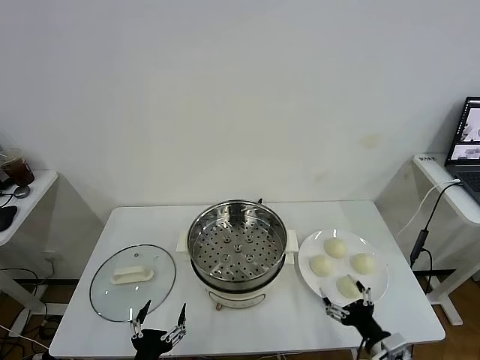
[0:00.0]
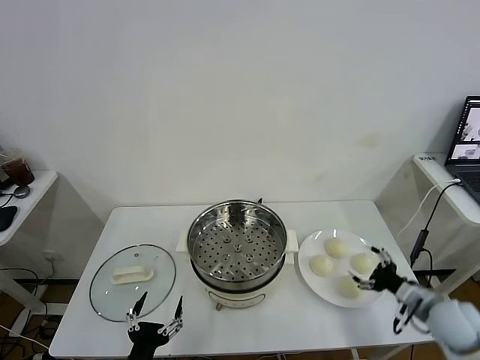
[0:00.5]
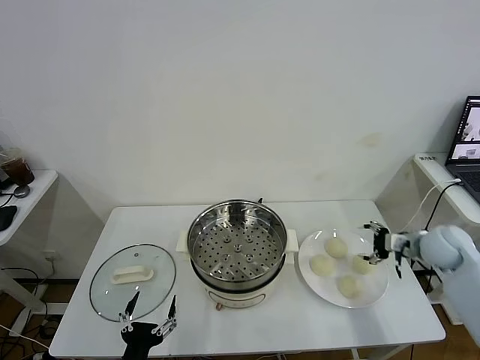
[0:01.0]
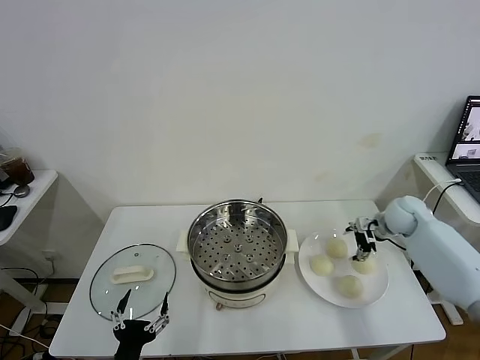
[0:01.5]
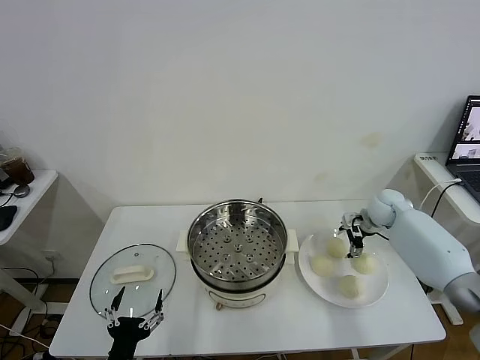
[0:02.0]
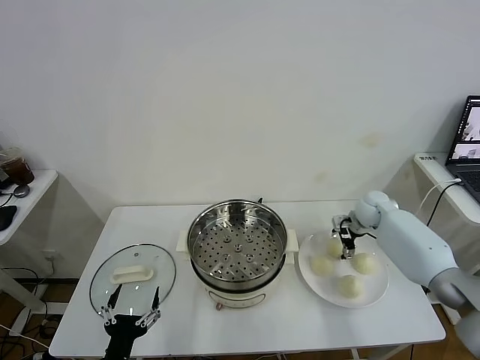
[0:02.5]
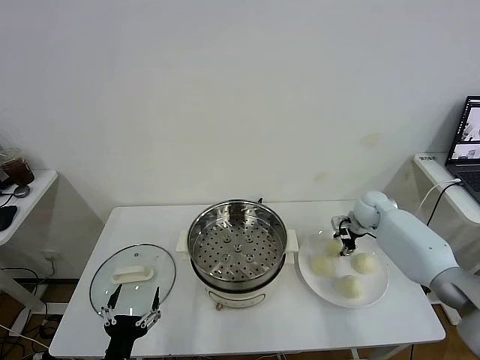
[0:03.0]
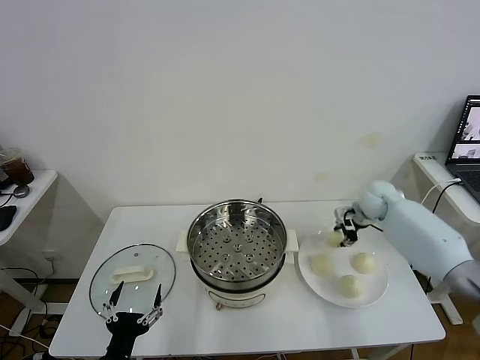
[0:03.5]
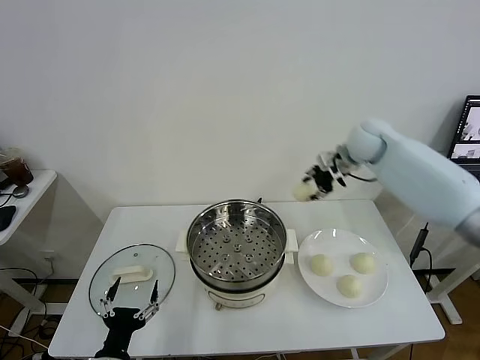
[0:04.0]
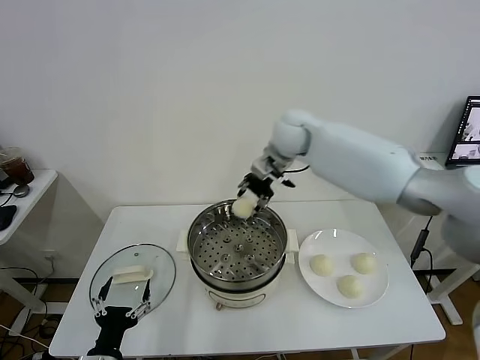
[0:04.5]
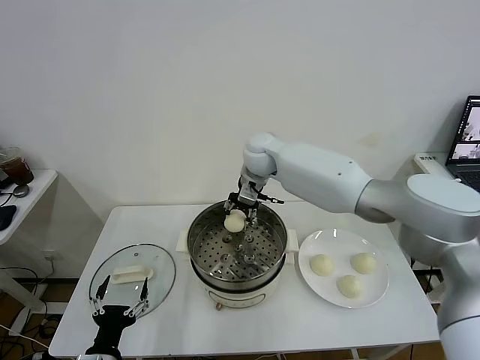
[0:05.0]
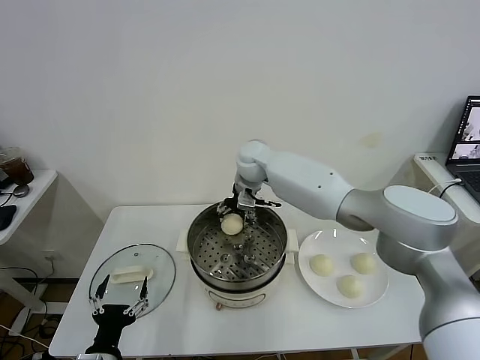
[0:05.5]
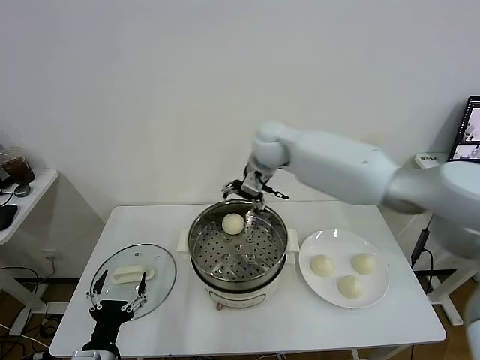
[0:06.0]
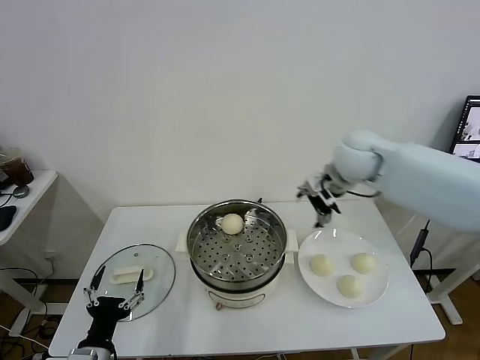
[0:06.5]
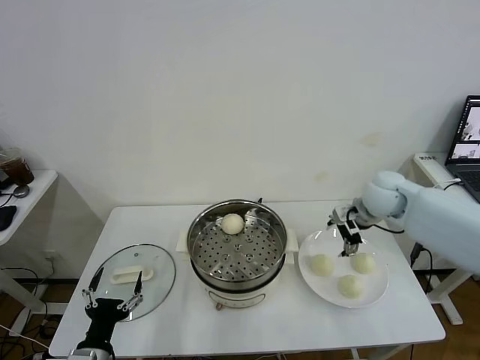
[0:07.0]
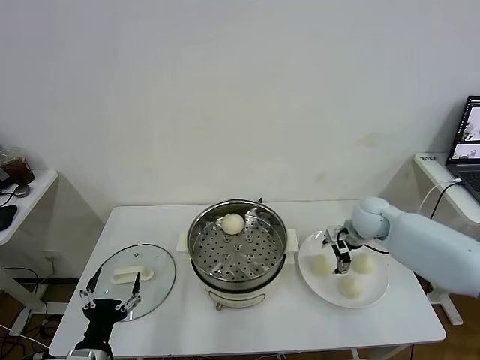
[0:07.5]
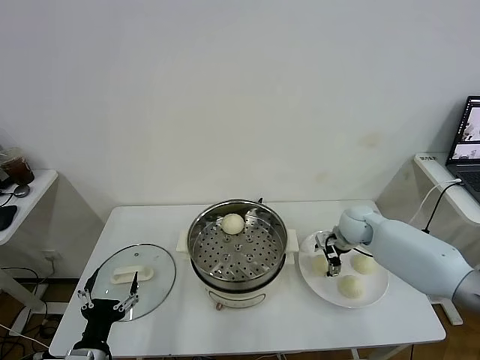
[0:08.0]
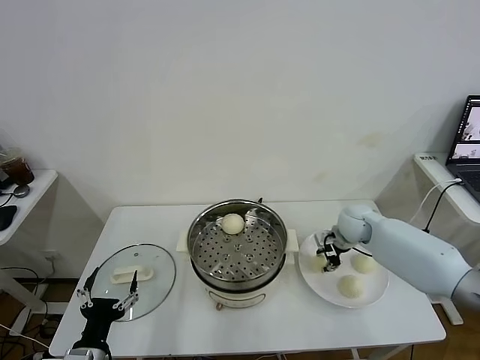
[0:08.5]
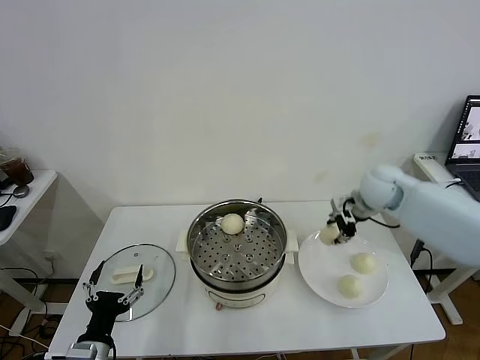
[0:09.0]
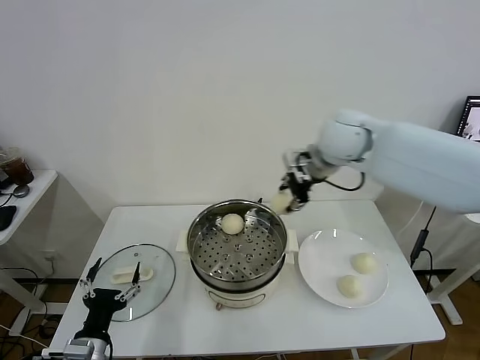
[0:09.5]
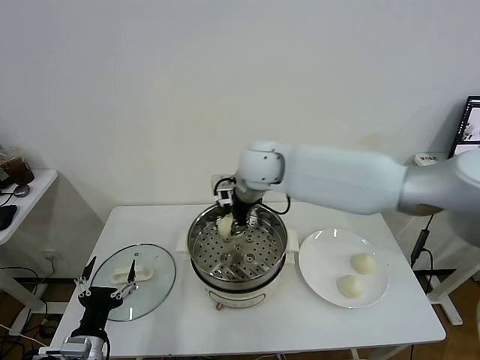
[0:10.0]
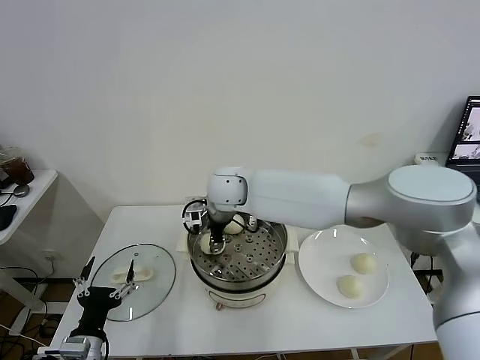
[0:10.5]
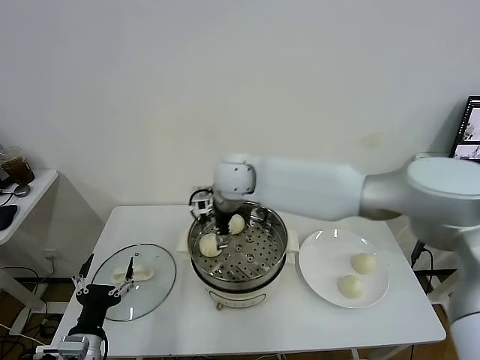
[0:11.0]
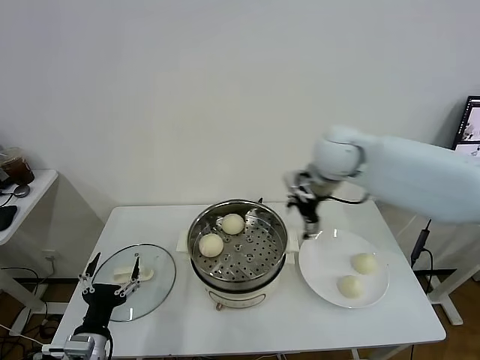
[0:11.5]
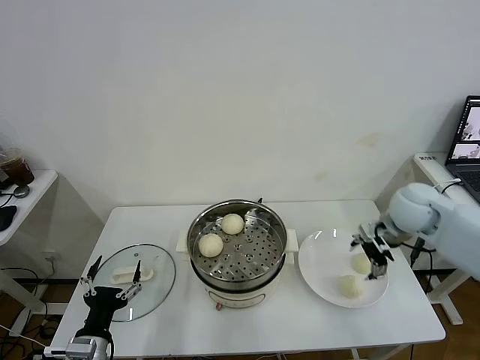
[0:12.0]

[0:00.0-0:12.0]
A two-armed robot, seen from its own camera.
Task of the whole recording: take steamed baozi put them in steamer.
Step, 0:00.0 to 0:03.0: Grasp the baozi in the plate with right gripper.
Step, 0:03.5 to 0:05.5: Place the baozi on the steamer with right gripper.
Step, 0:06.0 to 0:08.0: Grasp the baozi in the plate with right gripper.
Step, 0:09.0 to 0:10.5: Place the baozi on the steamer with right gripper.
0:02.0 to 0:04.0: The right gripper moves upward and to the left, approximately 25 cm, and closes up.
0:04.0 to 0:06.0: The right gripper shifts roughly 20 cm to the left, and opens.
0:06.0 to 0:08.0: The right gripper shifts roughly 30 cm to the right and downward.
0:08.0 to 0:10.0: The right gripper shifts some 35 cm to the left and upward, and closes its fingers.
0:10.0 to 0:12.0: The right gripper shifts approximately 30 cm to the right, and opens up.

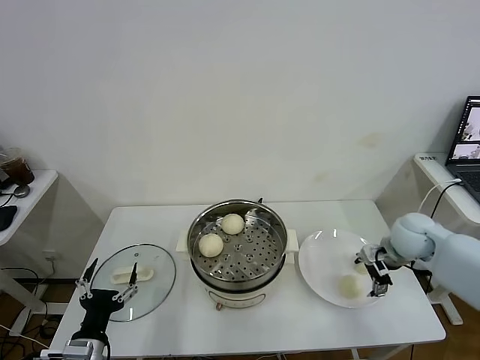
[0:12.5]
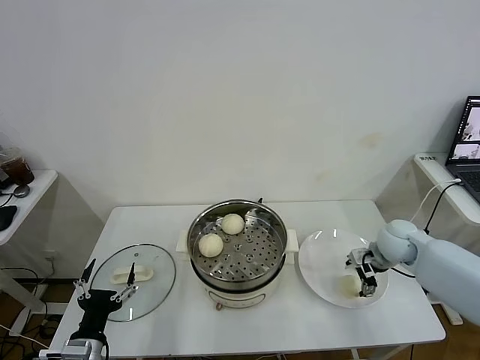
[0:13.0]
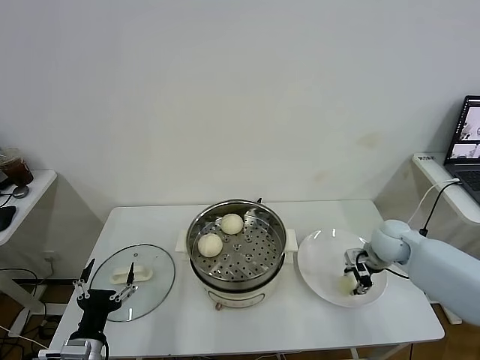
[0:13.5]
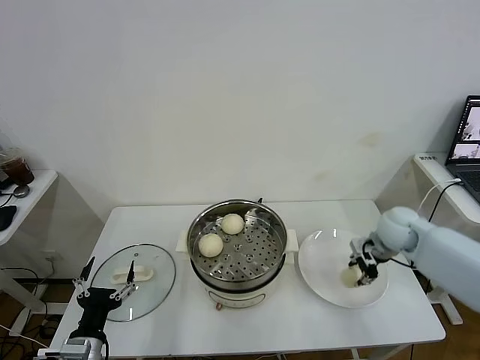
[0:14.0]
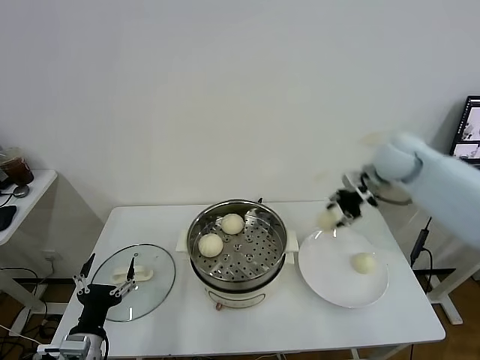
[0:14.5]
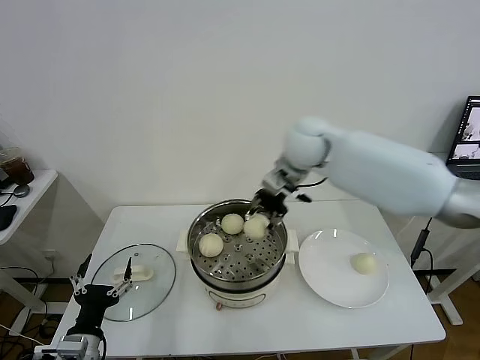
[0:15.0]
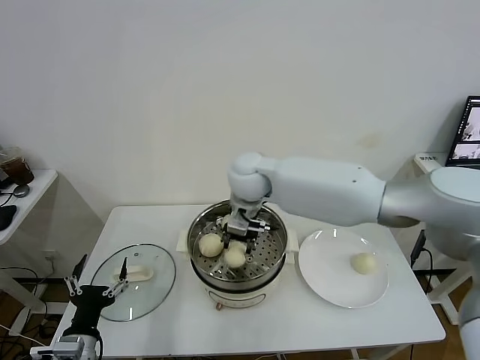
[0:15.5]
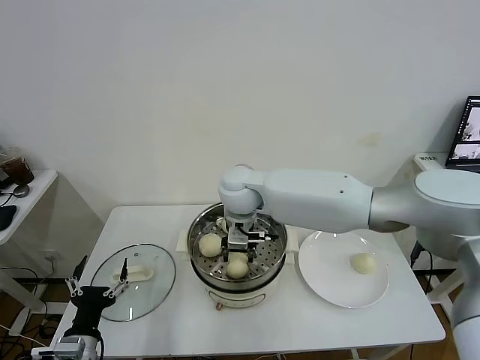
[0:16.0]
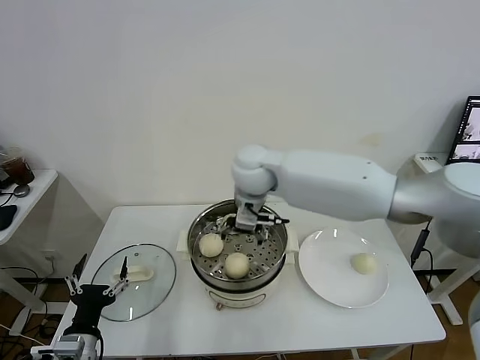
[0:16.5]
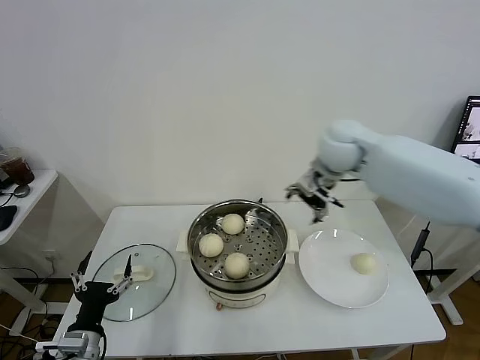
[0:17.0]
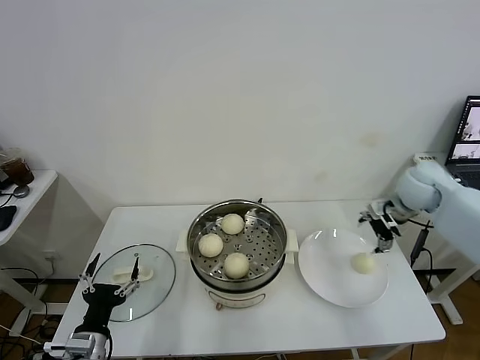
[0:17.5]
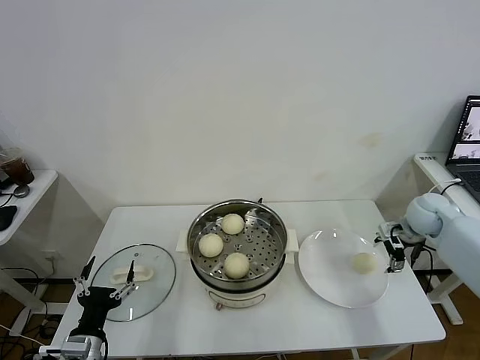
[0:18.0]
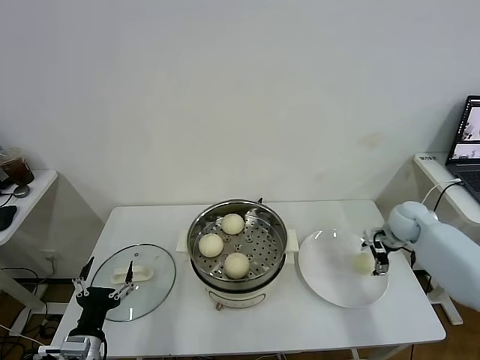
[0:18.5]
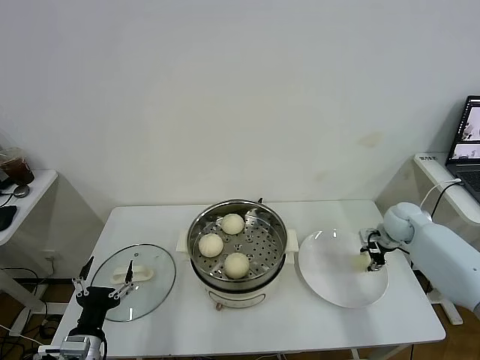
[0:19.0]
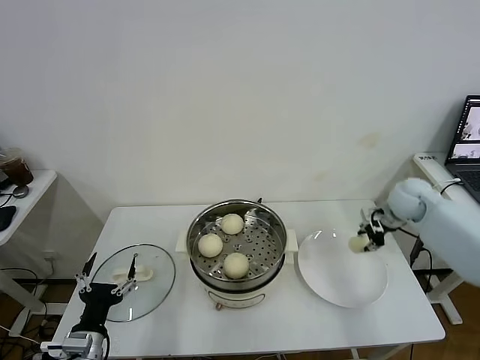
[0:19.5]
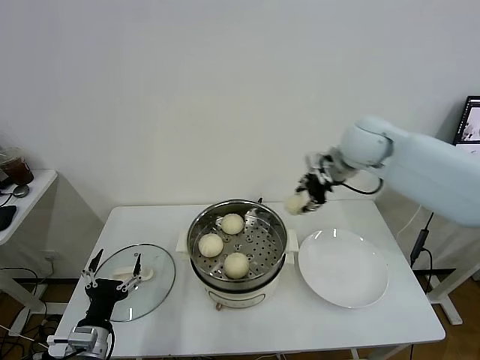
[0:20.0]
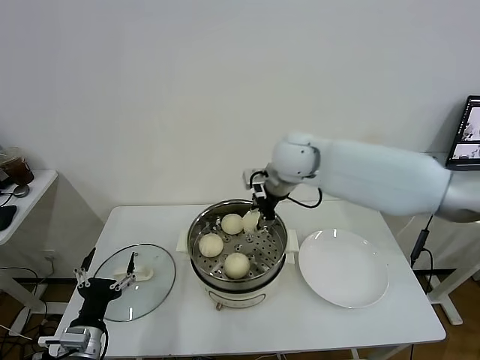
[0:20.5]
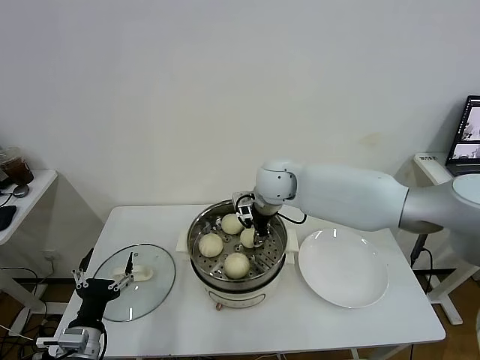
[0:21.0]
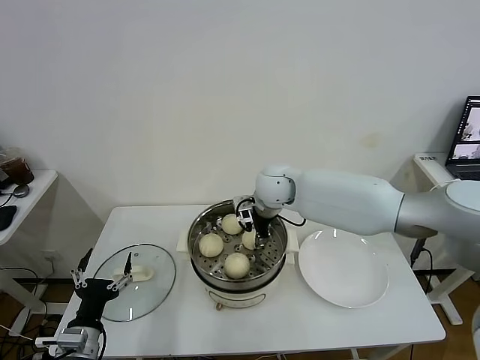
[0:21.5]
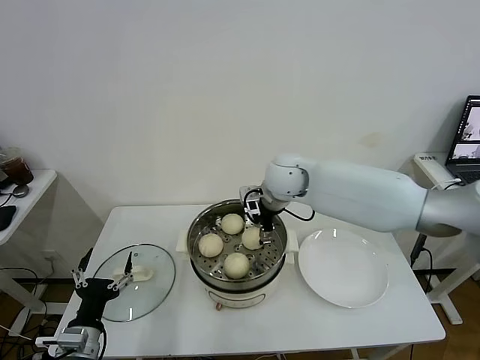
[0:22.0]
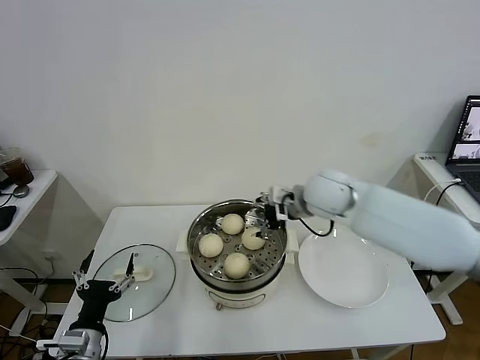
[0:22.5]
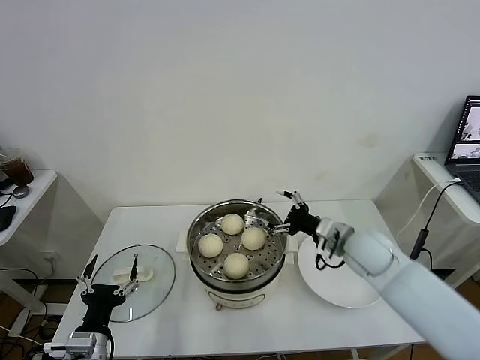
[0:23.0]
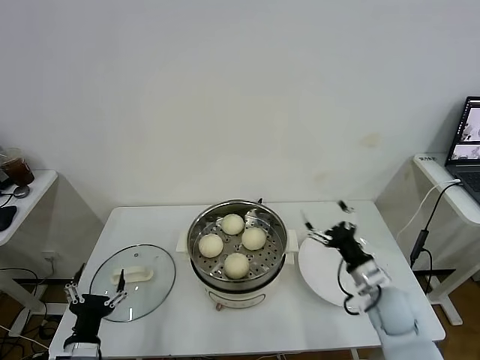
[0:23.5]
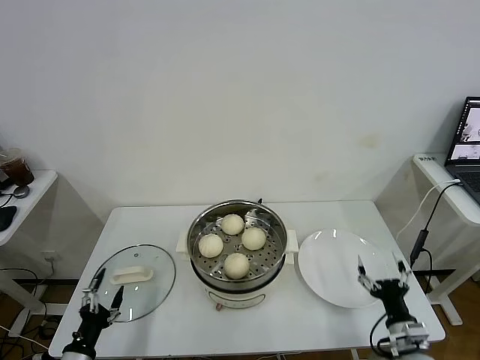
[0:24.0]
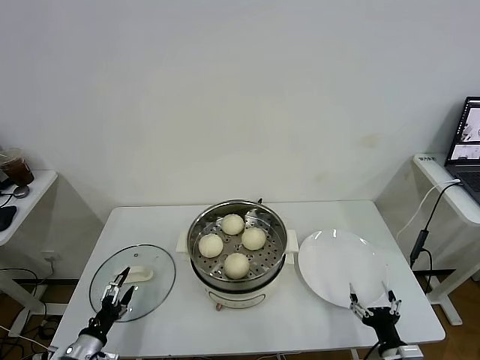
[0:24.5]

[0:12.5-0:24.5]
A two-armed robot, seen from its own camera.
Task of the whole recording: take steamed baozi put them in steamer.
Step, 0:14.0 to 0:16.0: Place the baozi on the steamer with right gripper.
Step, 0:16.5 to 0:19.0: Grasp the baozi in the plate with right gripper.
Step, 0:19.5 to 0:22.0: Place the baozi on the steamer with right gripper.
0:12.5 to 0:14.5: The right gripper shifts roughly 15 cm upward and forward, and closes up.
0:14.5 to 0:16.5: The right gripper moves to the left, roughly 30 cm, and opens up.
0:16.5 to 0:18.5: The right gripper heads to the right and downward, covering roughly 40 cm.
0:18.5 to 0:20.5: The right gripper goes about 40 cm to the left and upward, and closes up.
0:20.5 to 0:22.5: The right gripper goes approximately 10 cm downward and to the right, and opens.
0:22.5 to 0:24.5: The right gripper shifts about 50 cm backward, downward and to the right; the left gripper travels downward and to the left by roughly 10 cm.

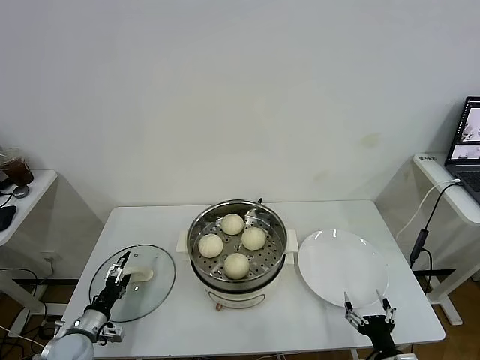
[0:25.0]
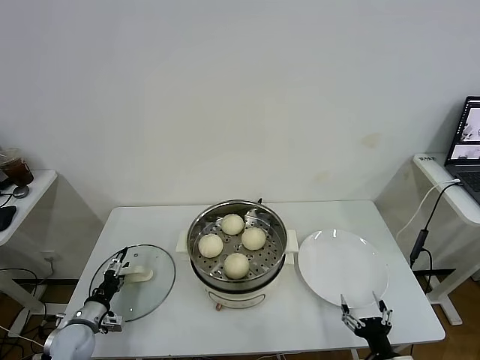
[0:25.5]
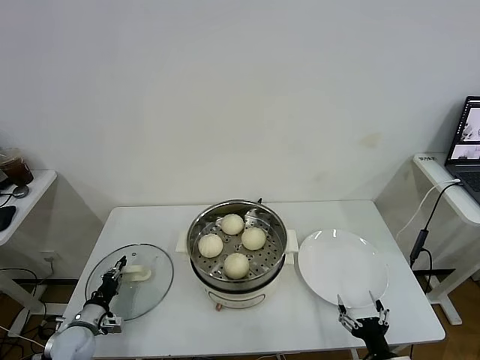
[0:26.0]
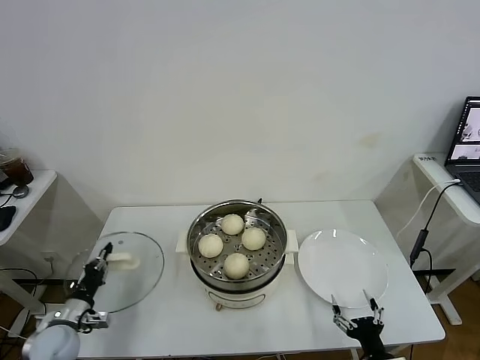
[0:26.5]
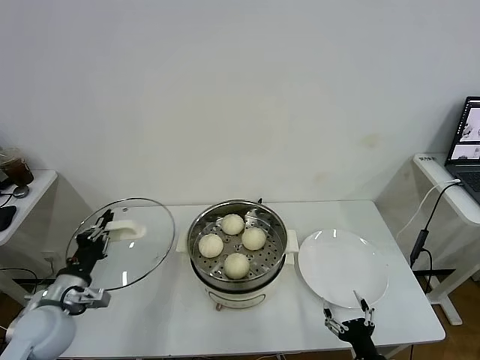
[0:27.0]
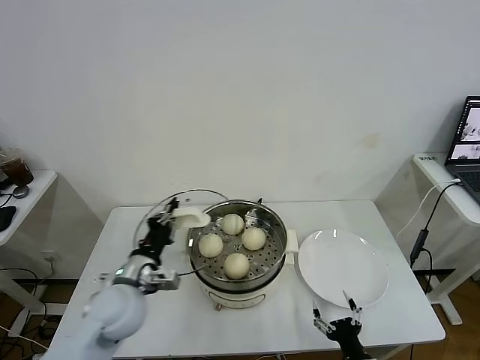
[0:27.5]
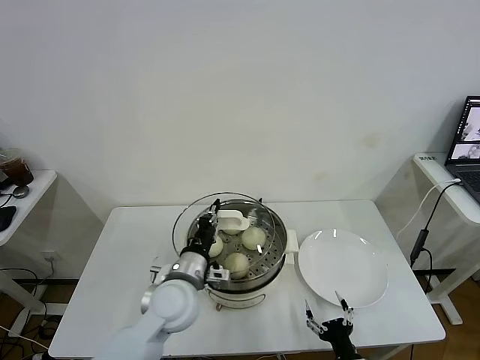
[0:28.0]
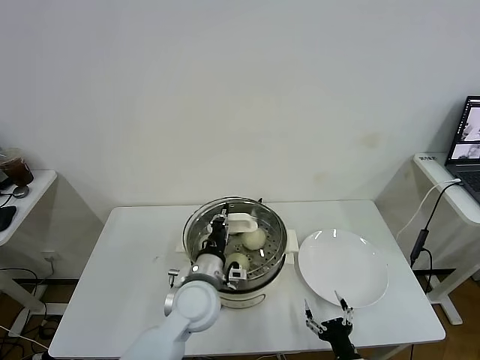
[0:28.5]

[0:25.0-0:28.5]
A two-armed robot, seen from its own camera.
Task of the whole recording: take steamed baozi put them in steamer.
0:25.0 to 0:27.0: The left gripper goes roughly 15 cm upward, and closes.
0:27.0 to 0:28.5: The right gripper changes place by approximately 5 cm; the left gripper shifts some 30 cm to the right.
